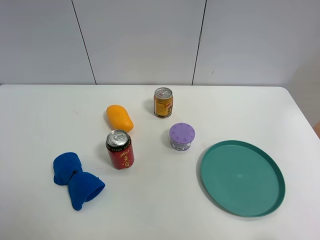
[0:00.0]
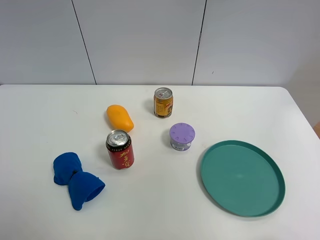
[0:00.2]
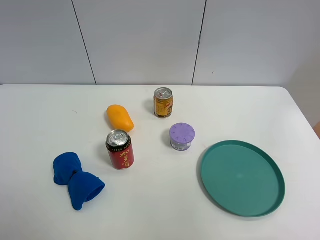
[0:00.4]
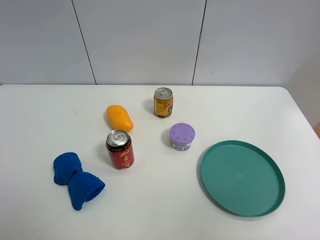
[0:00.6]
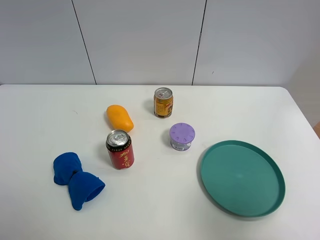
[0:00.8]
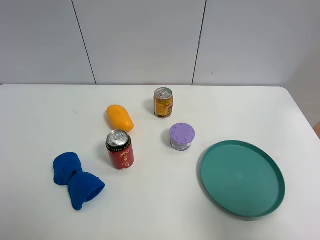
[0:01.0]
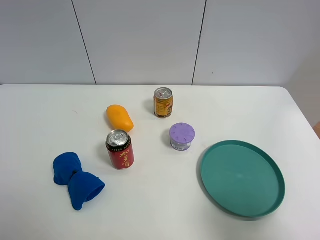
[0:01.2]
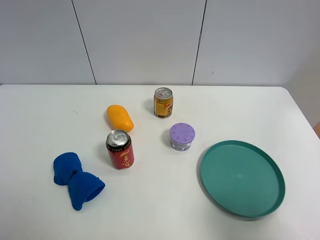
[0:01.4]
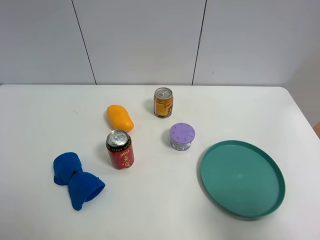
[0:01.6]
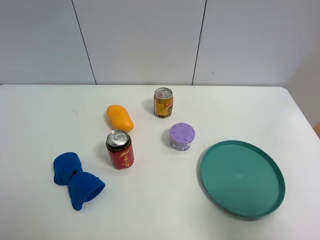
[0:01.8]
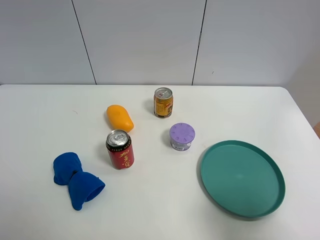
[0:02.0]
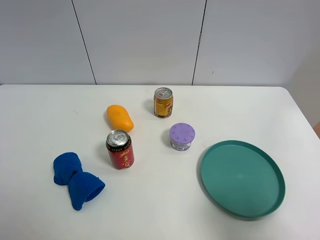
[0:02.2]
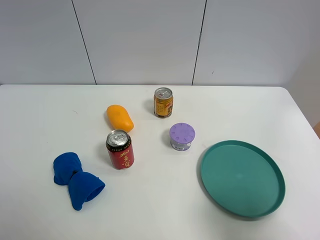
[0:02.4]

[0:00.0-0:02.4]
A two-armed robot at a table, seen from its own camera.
Task of the whole recording: the gripper move the object.
0:00.0 to 0:01.2: The right gripper heads downward, covering about 30 cm.

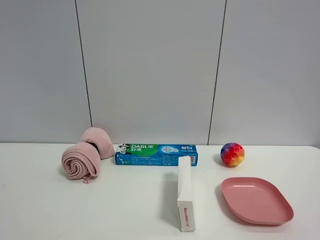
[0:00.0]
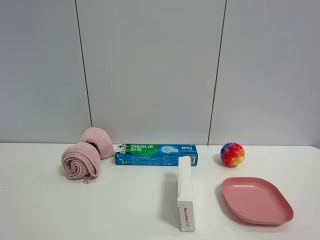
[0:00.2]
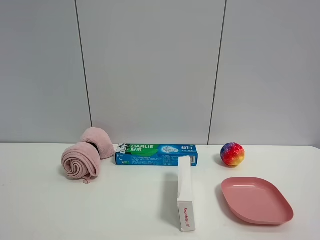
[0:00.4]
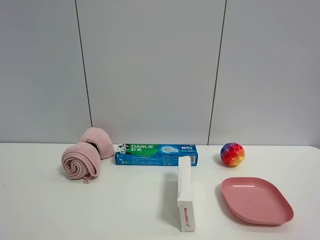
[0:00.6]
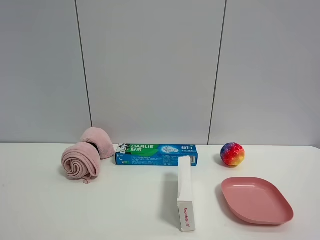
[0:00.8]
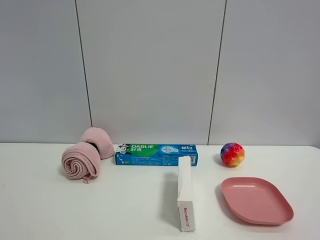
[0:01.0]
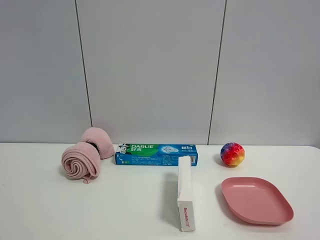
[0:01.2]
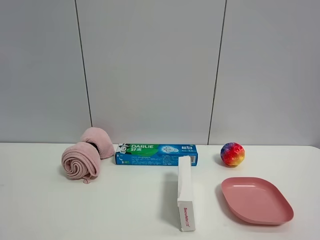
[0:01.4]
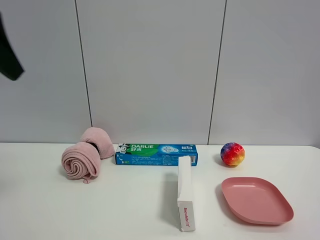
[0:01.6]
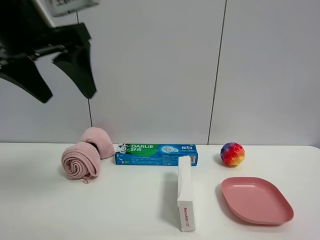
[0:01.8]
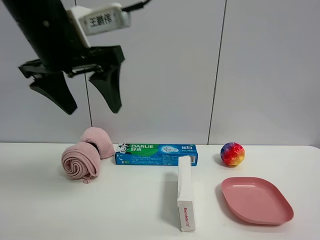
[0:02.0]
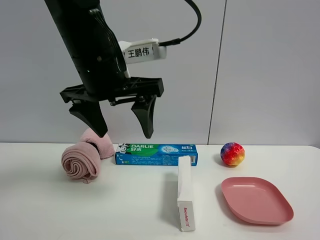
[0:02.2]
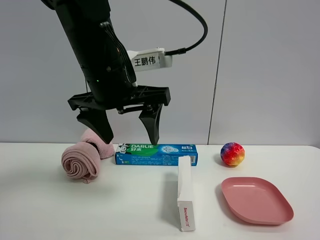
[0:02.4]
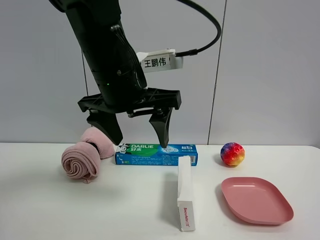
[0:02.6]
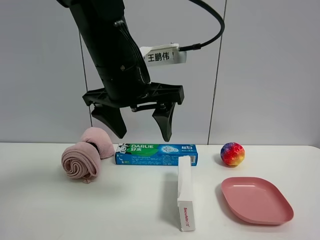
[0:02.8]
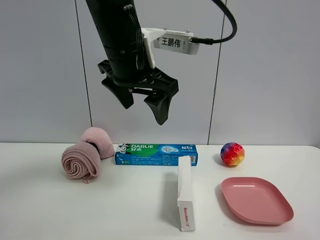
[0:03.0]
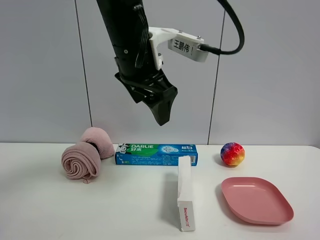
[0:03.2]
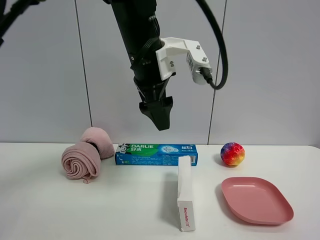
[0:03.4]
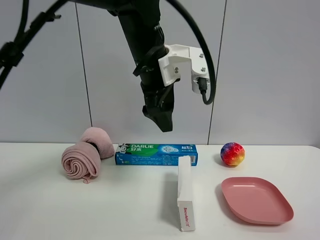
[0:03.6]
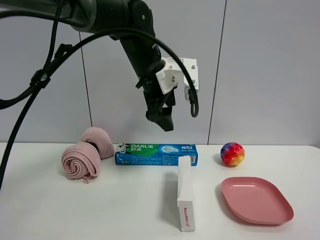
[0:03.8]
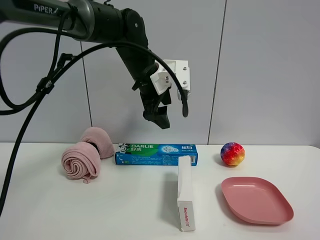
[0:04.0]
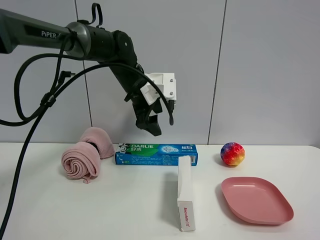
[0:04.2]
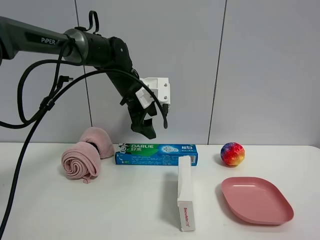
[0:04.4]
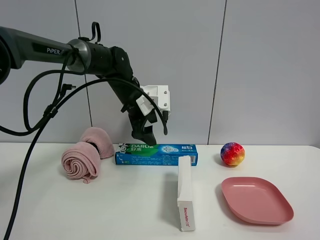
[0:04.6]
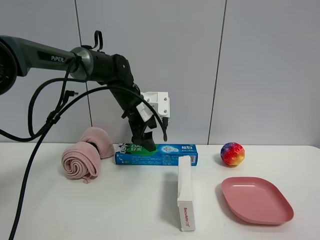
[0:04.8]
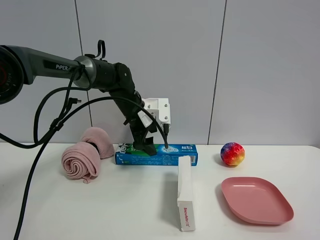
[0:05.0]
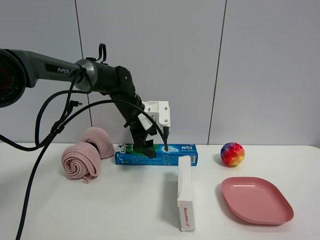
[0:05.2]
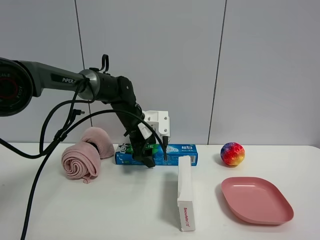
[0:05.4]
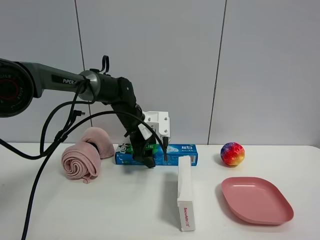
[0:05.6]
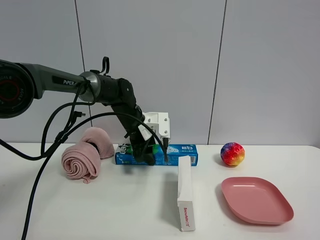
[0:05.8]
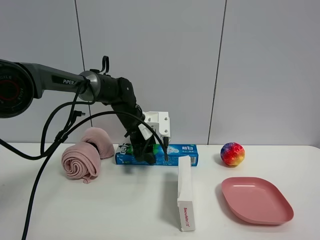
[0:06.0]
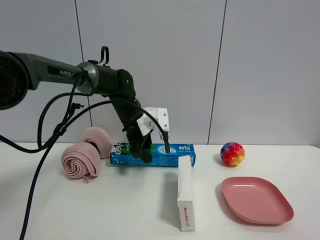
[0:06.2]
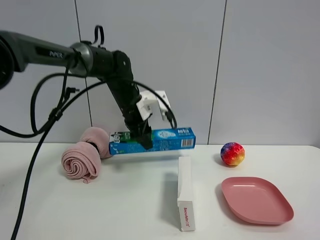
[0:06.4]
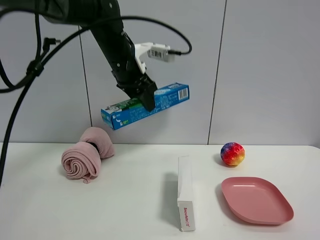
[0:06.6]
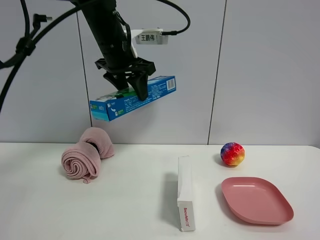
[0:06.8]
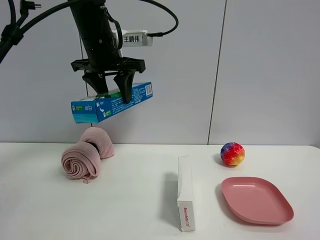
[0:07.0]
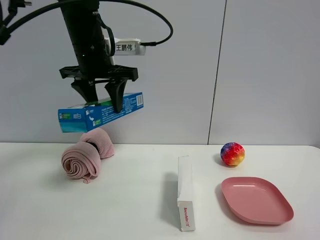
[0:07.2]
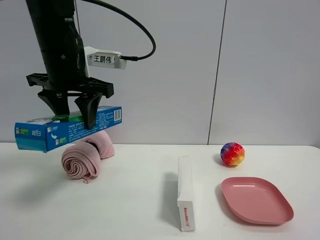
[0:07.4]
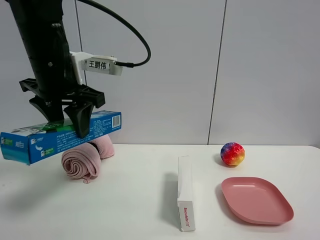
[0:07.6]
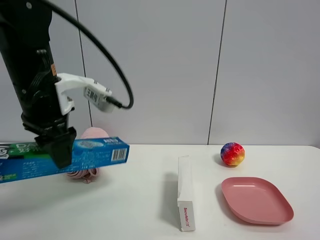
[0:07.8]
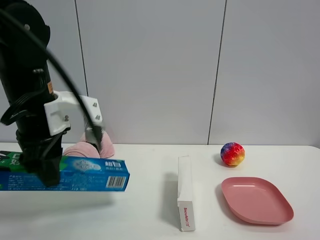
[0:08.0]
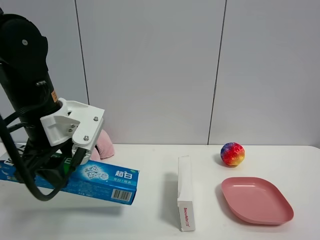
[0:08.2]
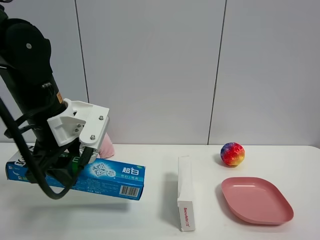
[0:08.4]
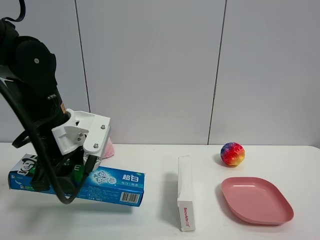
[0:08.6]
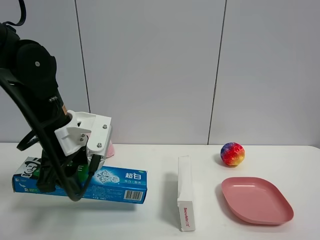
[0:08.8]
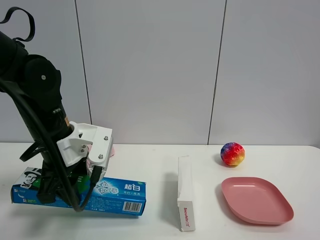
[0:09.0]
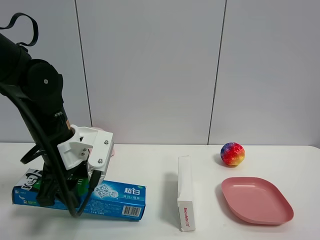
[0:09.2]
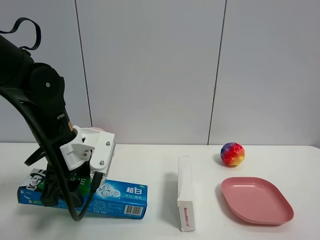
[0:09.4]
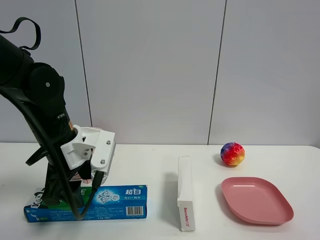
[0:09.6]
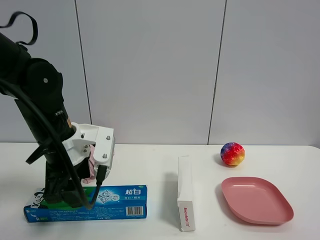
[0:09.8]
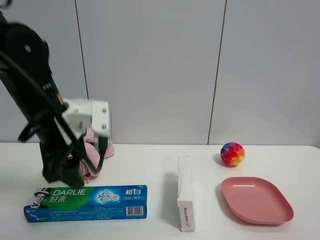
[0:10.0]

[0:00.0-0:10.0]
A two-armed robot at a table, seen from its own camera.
Task of the whole recording: the gripper move the object.
Step, 0:00.0 to 0:05.8: Grasp the toothpaste with the left gripper.
Step, 0:06.0 to 0:09.8: Place the toothpaste on the table with the left gripper.
0:01.4 to 0:02.8: The left gripper travels to the right, forward and downward by roughly 25 cm.
0:02.8 to 0:04.2: The left gripper goes about 20 cm forward and downward.
0:04.2 to 0:05.8: The left gripper is displaced downward by about 10 cm, and closes up.
0:05.8 to 0:07.2: The left gripper is displaced upward and backward by roughly 20 cm.
0:07.2 to 0:08.6: The left gripper is displaced downward and backward by about 15 cm.
0:08.6 to 0:10.0: The left gripper opens its fingers.

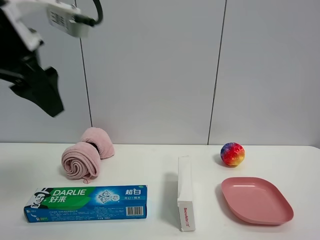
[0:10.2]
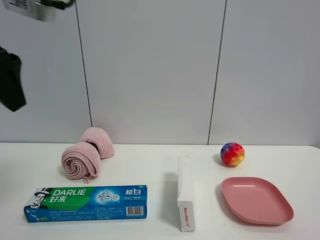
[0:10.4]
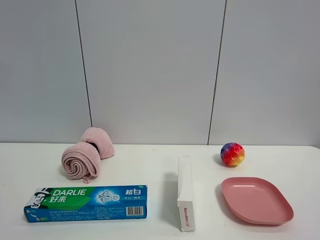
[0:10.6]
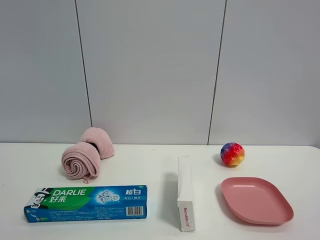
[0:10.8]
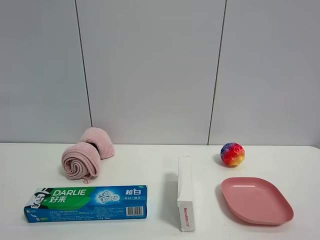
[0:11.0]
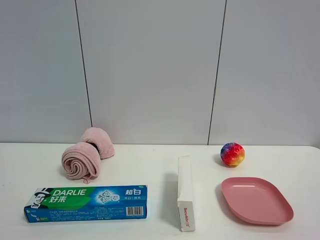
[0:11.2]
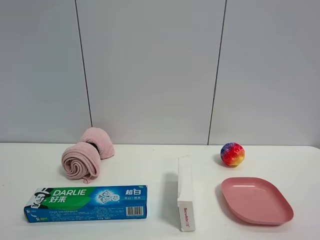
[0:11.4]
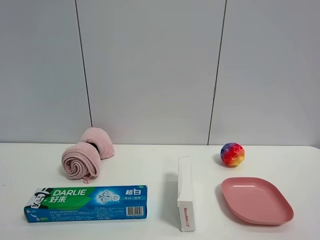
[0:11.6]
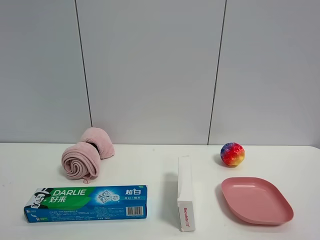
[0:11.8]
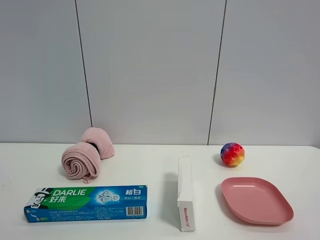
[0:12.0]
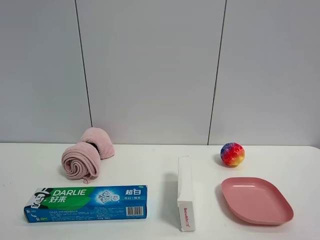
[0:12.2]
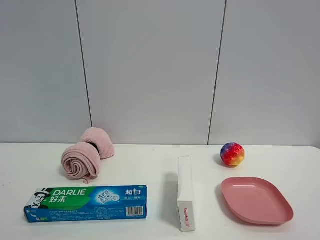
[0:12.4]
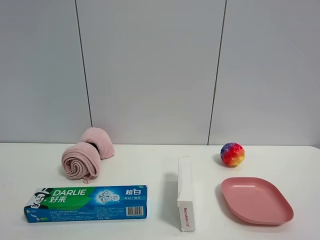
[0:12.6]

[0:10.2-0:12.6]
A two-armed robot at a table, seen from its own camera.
Task of the whole recording: the gripper move the object.
0:10.2 to 0:11.4: The left gripper goes roughly 30 cm backward and to the left.

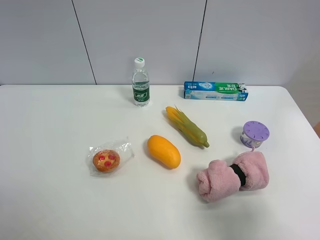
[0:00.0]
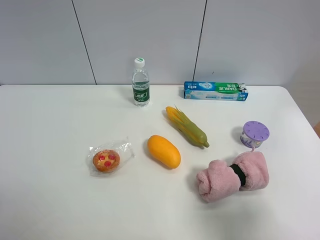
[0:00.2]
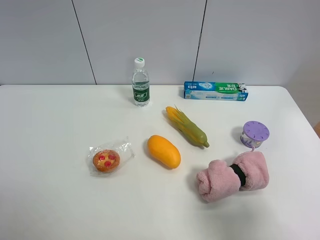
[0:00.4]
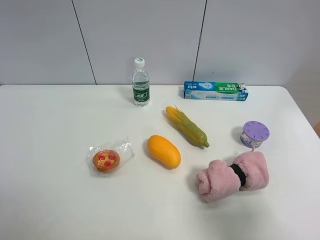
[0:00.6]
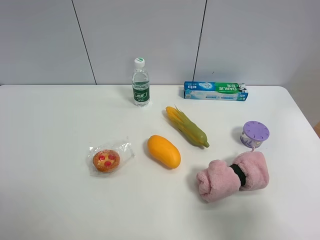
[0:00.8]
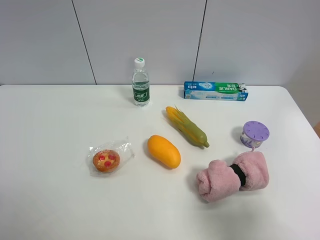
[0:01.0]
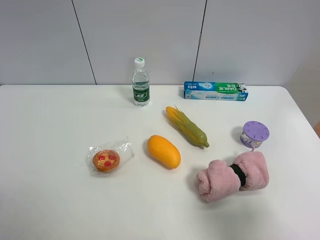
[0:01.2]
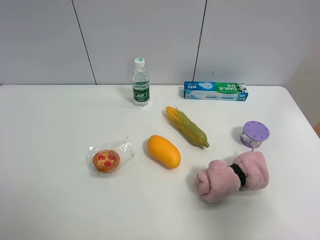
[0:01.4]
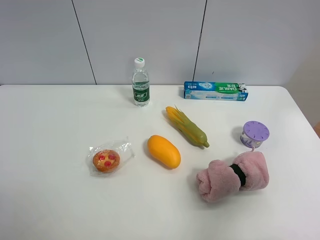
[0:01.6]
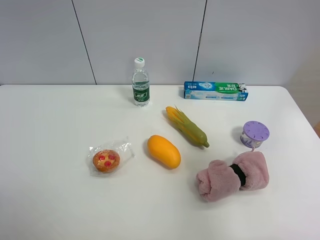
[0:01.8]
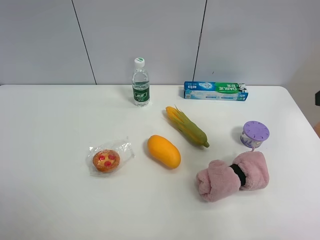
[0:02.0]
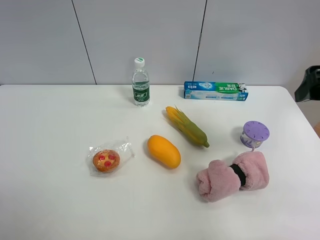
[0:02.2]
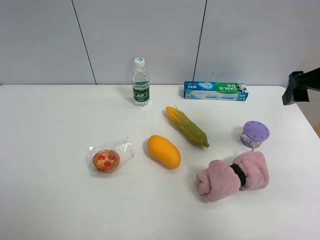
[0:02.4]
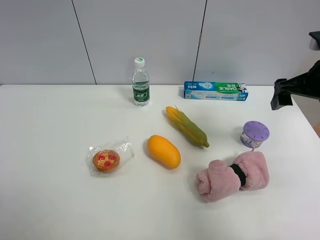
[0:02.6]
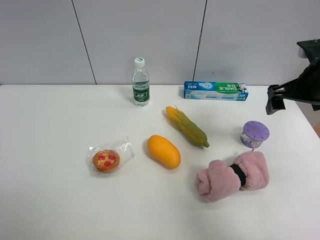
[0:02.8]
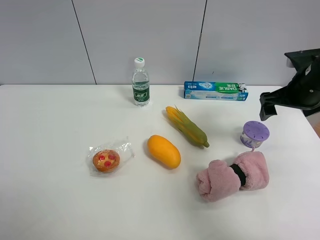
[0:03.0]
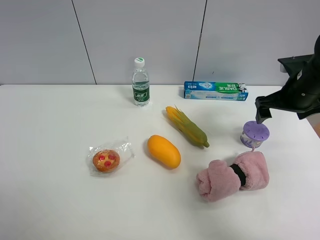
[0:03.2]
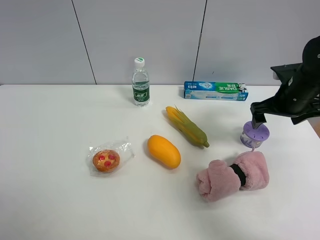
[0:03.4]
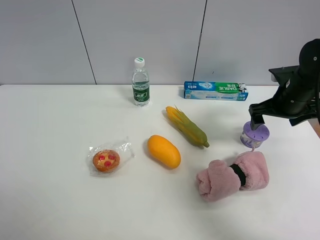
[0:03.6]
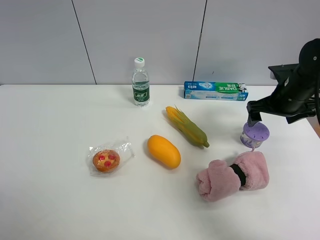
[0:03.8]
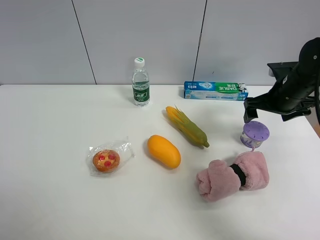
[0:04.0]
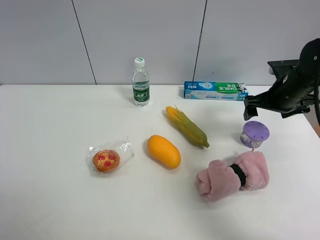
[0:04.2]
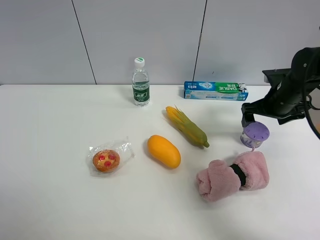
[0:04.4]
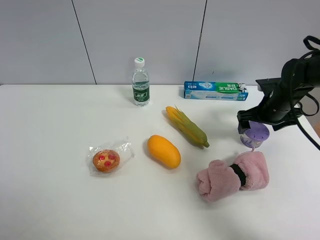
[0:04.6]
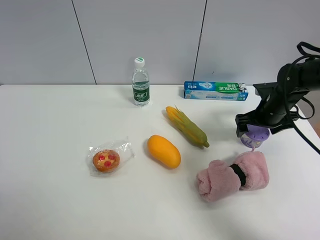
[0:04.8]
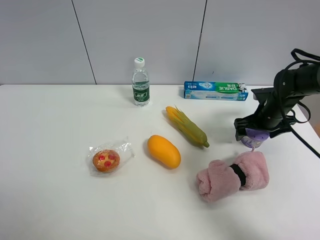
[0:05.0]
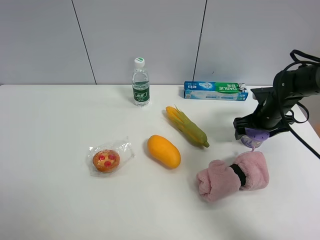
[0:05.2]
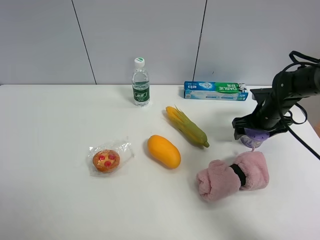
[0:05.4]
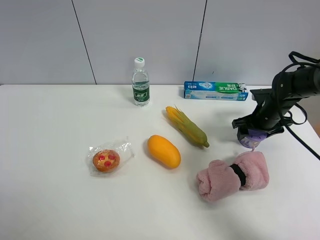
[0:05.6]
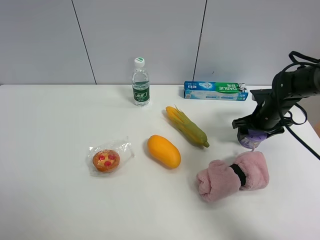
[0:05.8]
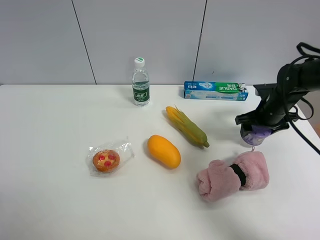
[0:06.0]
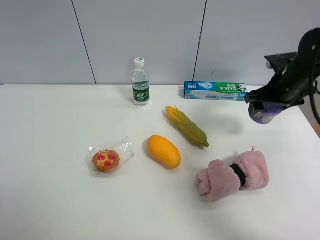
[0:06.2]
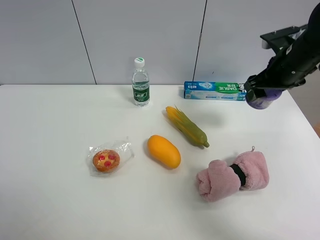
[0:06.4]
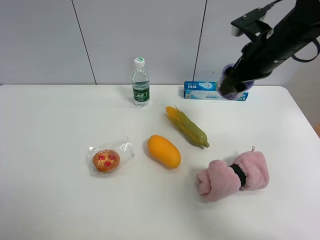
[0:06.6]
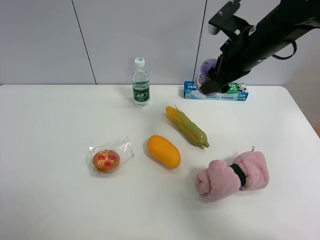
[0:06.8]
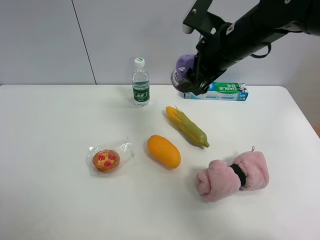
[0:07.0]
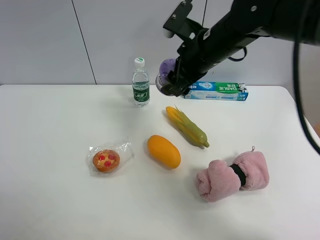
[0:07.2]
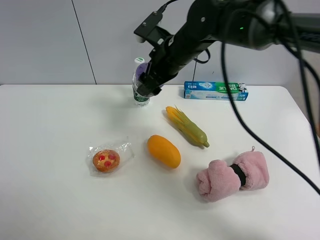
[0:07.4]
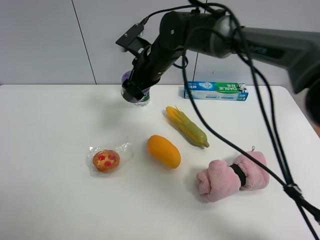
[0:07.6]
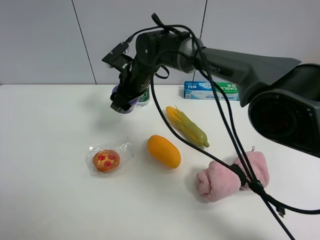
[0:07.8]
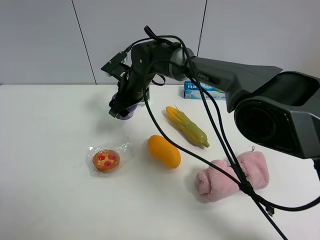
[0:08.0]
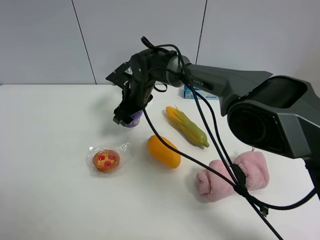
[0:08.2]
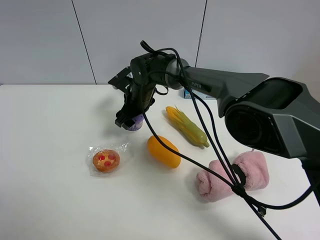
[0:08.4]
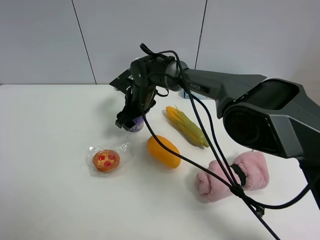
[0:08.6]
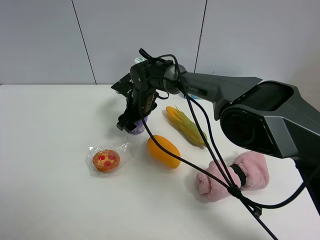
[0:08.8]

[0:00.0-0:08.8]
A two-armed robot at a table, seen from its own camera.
Task of the whole recording: the gripper move the object.
Step, 0:00.0 to 0:05.6: Grasp the Incense box with the right gripper.
0:01.4 to 0:03.0: The right gripper goes approximately 25 cm forward.
0:03.0 to 0:04.4: The right gripper heads downward, covering approximately 5 cm.
0:04.4 to 0:05.8: The right gripper moves downward, some 5 cm, and closes.
0:05.8 to 0:07.4: The right gripper goes some 30 cm to the left and upward.
0:07.4 to 0:08.8: The right gripper is displaced downward and to the left by some 15 cm.
